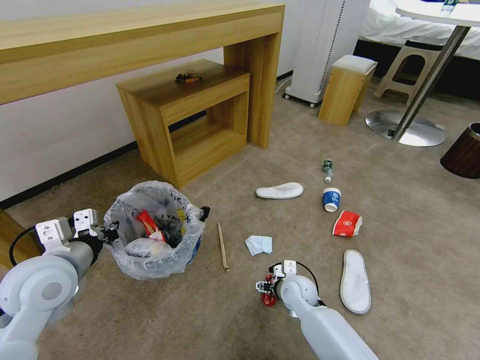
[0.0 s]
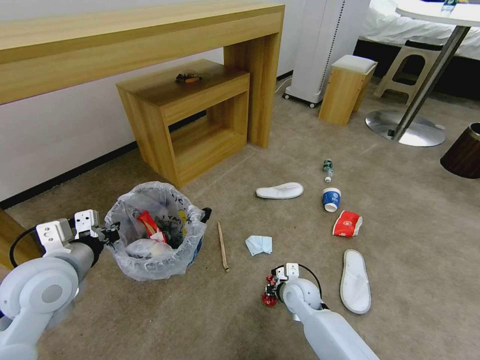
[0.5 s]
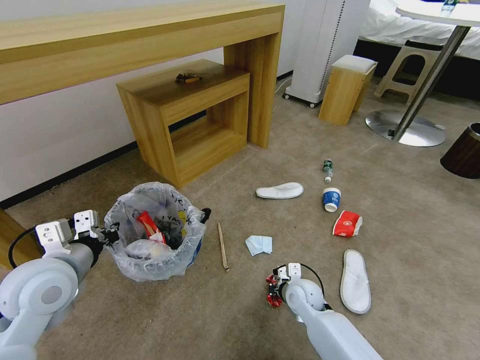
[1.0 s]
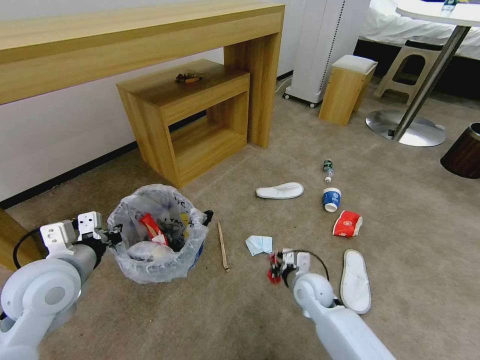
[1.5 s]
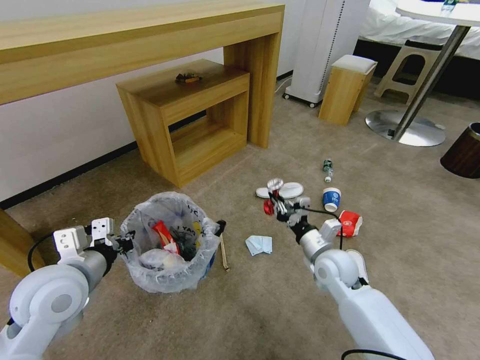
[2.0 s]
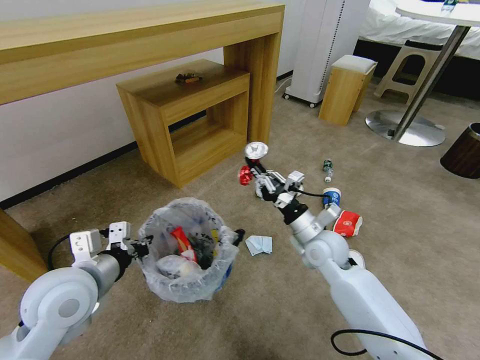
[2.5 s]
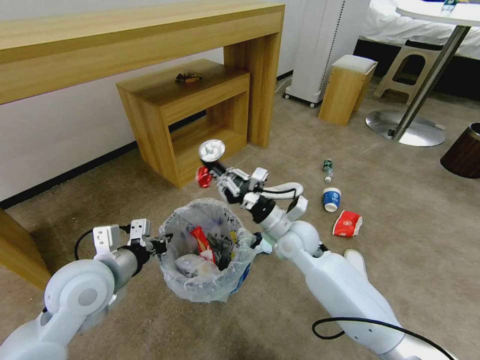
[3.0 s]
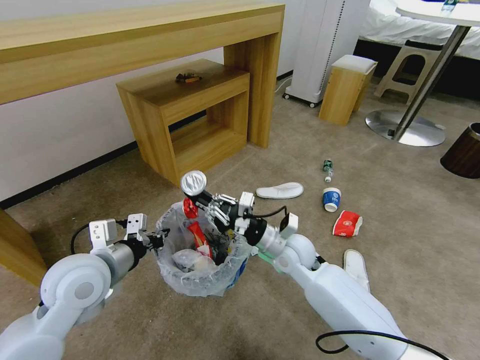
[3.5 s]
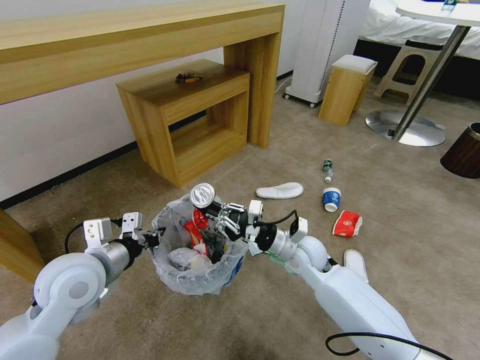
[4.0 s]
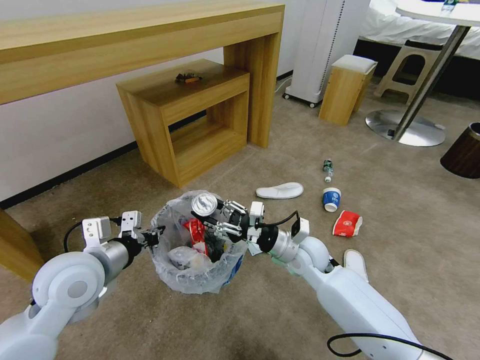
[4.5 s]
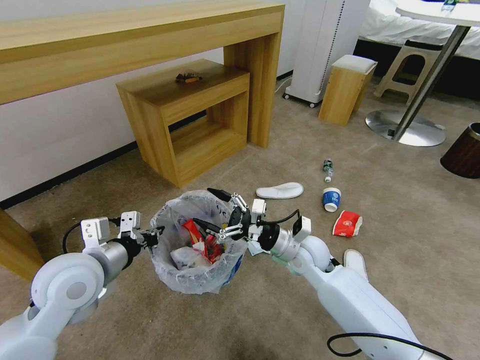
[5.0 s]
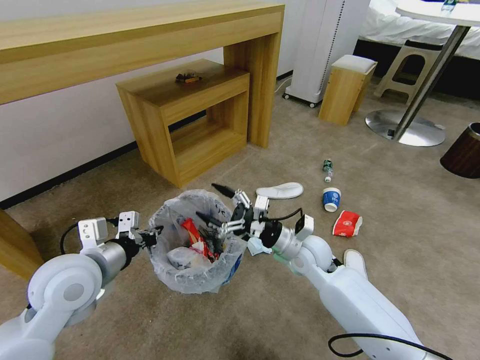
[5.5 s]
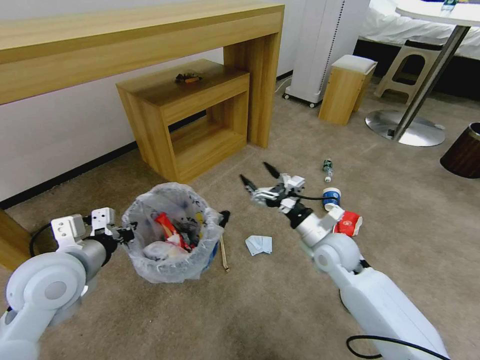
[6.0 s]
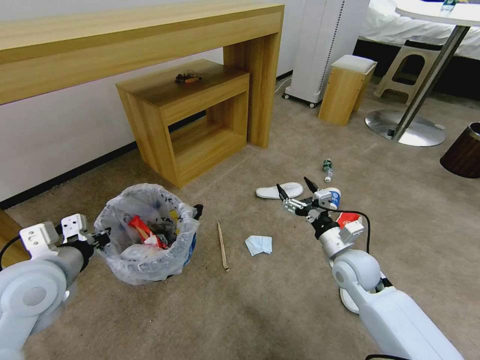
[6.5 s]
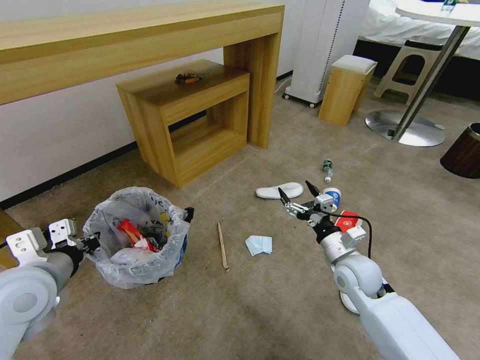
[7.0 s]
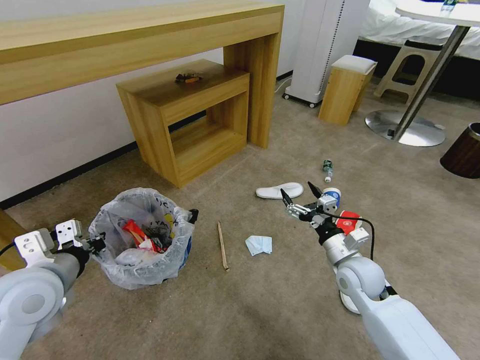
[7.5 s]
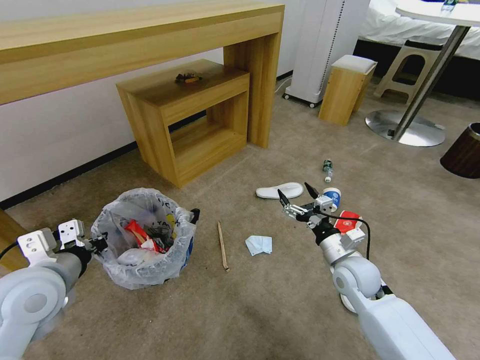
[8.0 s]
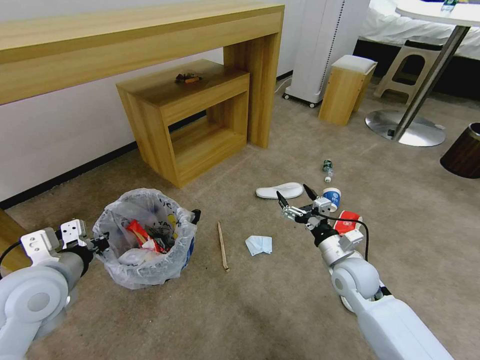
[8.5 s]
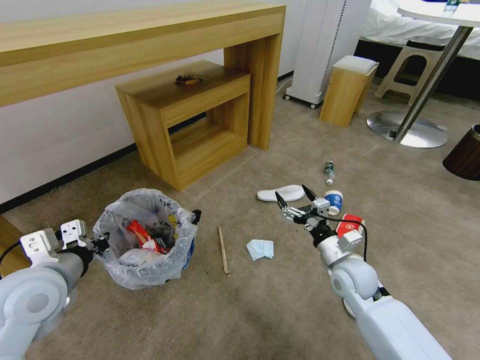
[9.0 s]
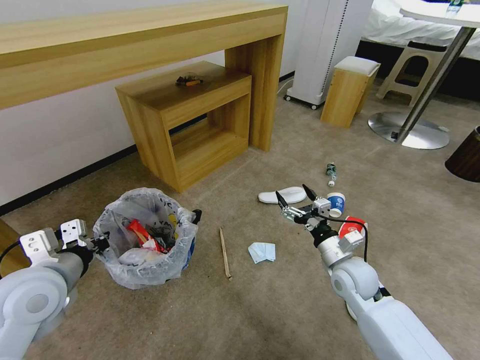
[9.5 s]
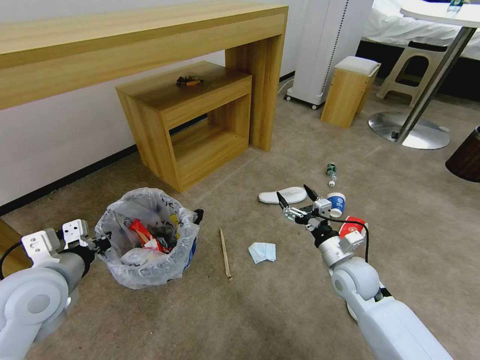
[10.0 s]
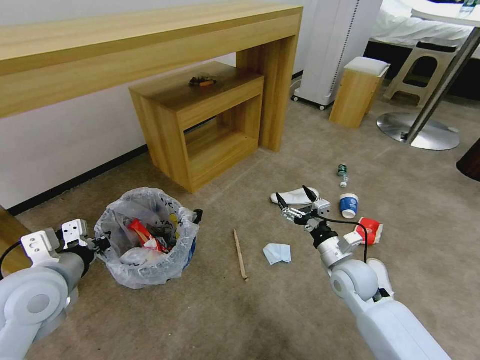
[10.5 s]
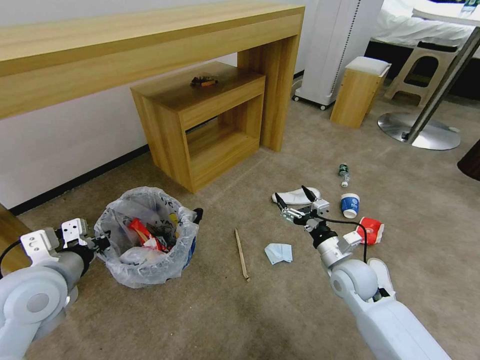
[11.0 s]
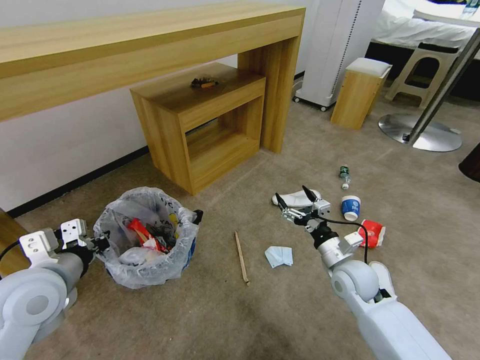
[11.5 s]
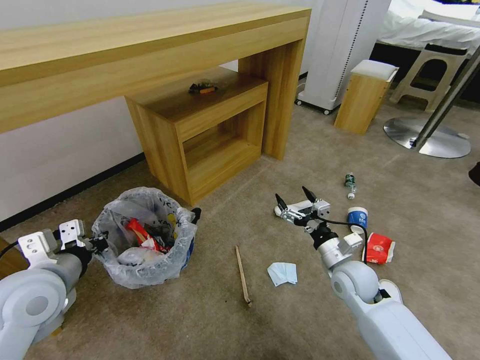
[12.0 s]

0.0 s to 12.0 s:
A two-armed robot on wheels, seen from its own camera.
Task of the whole recording: Pick up the trash bin and place the garbage on the floor into it.
0.0 to 2.0 s: The right gripper moves upward and to the right, some 15 cm, and closes.
2.0 to 4.0 s: The right gripper goes some 5 cm to the left.
4.0 to 6.0 s: The right gripper heads to the right, covering about 5 cm, and opens.
6.0 to 8.0 s: The right gripper changes place by approximately 5 cm.
8.0 to 10.0 s: Both grippers stay about where they are.

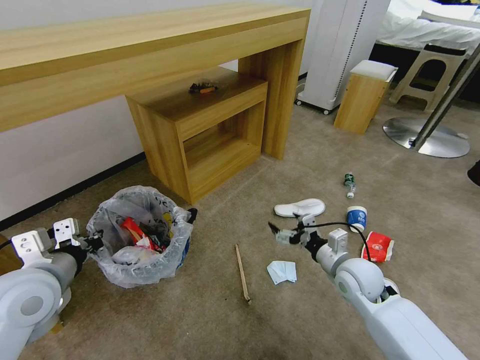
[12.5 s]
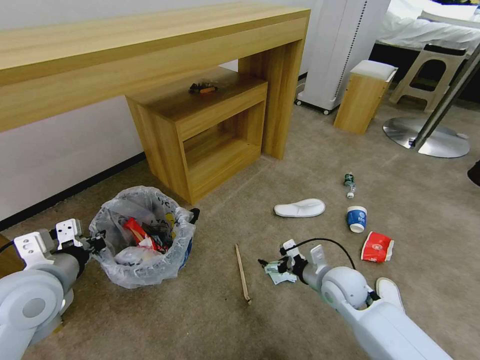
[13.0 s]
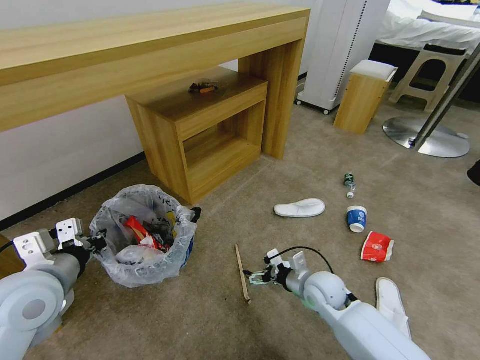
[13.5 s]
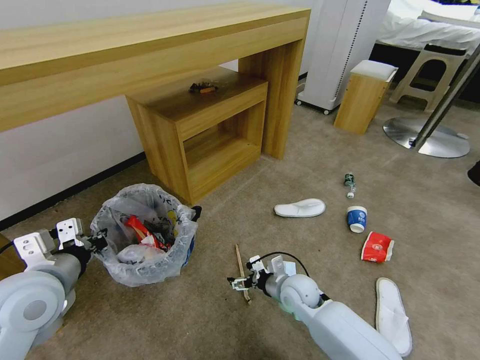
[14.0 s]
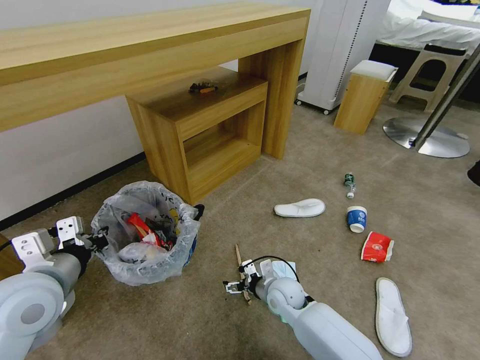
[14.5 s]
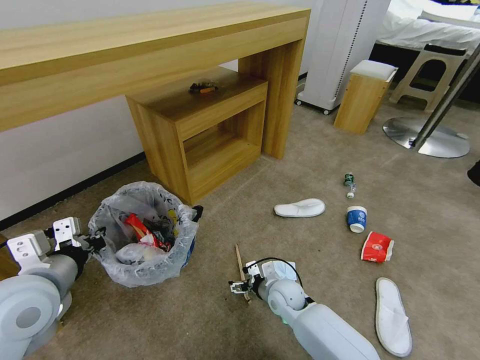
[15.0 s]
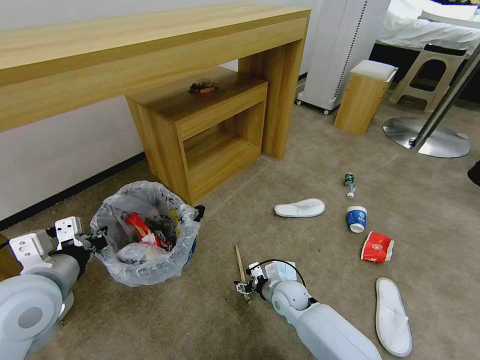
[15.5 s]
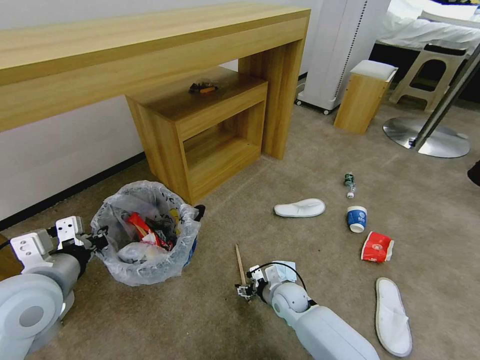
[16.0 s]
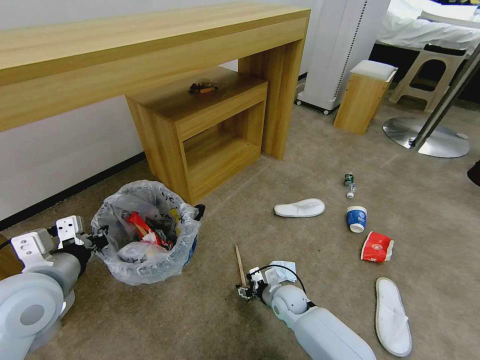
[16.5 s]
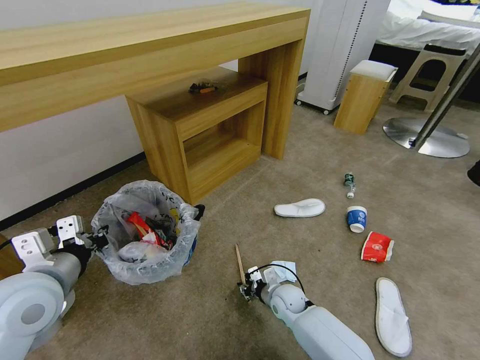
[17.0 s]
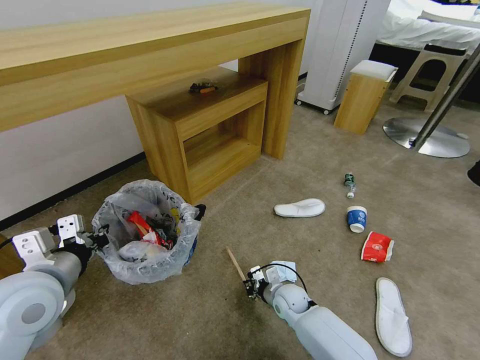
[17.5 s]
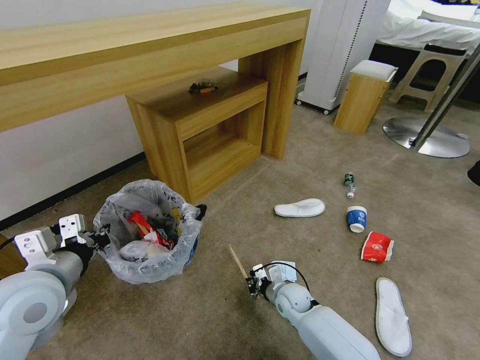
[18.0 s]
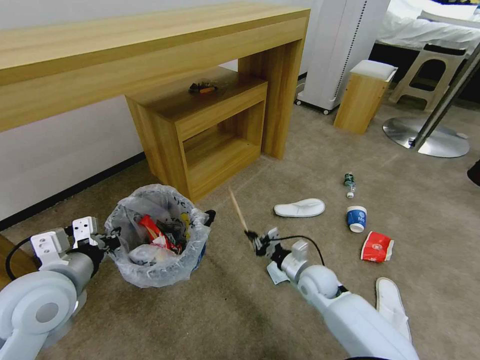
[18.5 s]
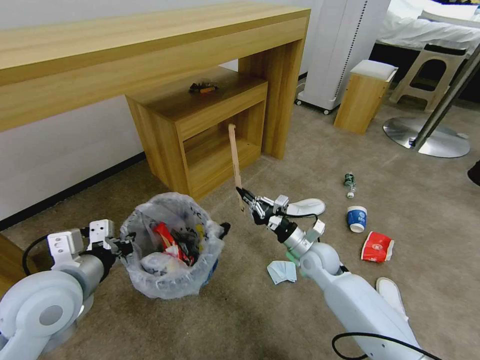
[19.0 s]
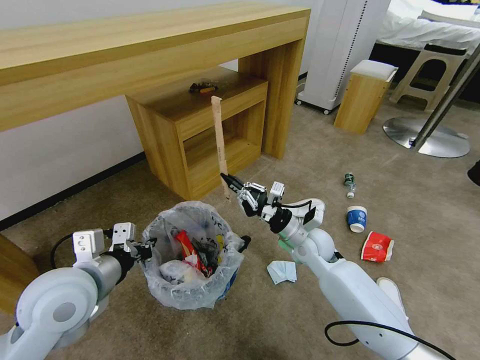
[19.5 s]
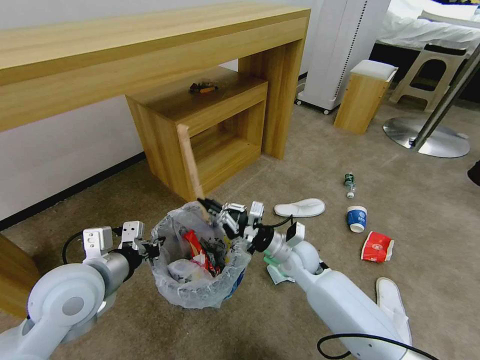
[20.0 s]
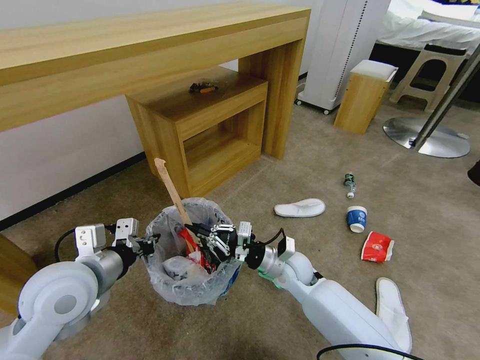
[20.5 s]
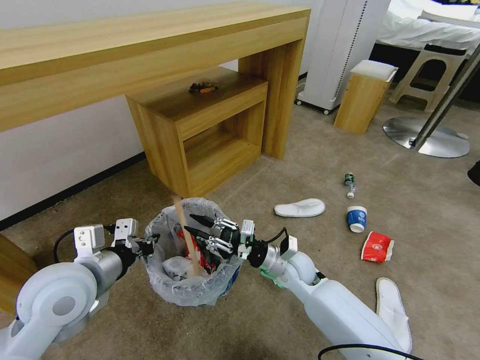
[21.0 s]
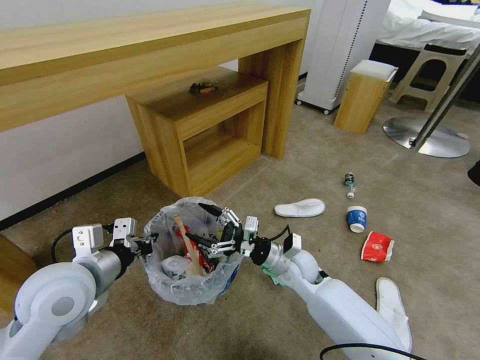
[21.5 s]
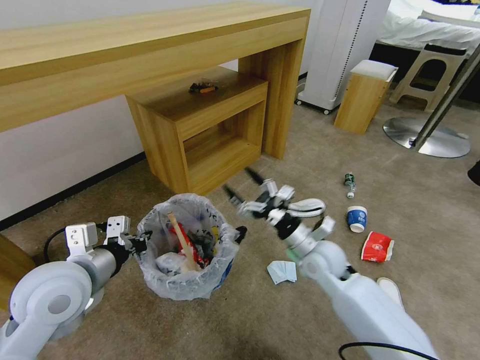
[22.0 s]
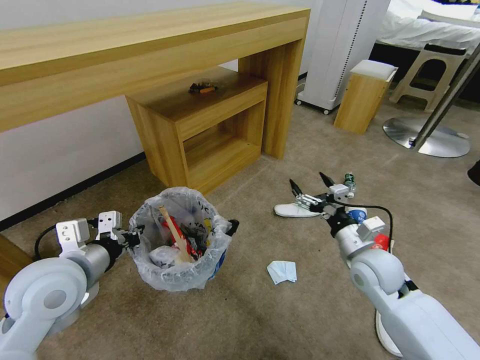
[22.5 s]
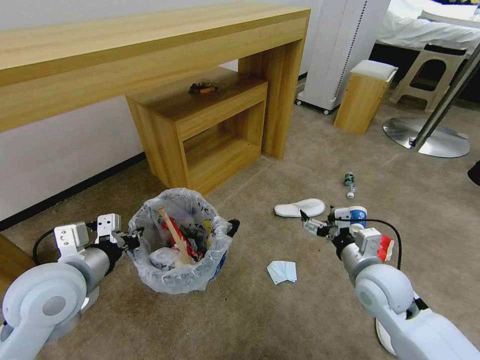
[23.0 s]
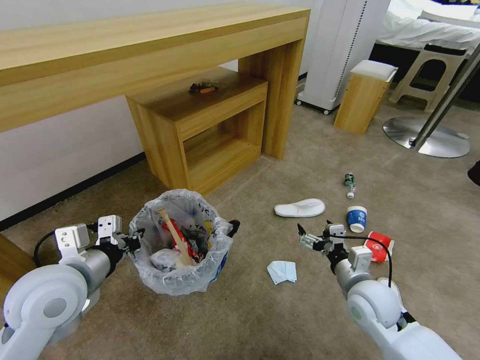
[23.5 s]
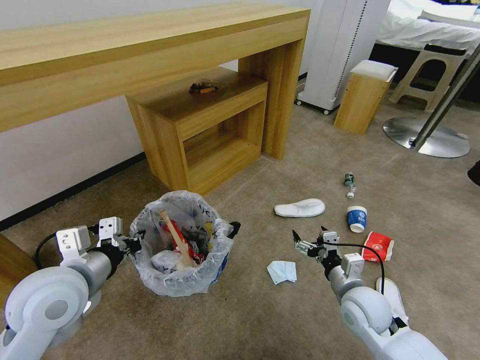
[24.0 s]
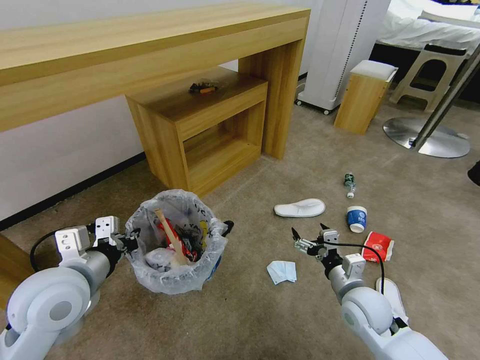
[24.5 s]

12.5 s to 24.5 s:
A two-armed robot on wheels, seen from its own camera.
Task of the whole recording: Pick up the trash bin and place the garbage on the floor into it.
12.5 to 14.5 s: The right gripper shifts about 20 cm to the left and downward.
14.5 to 16.5 s: The right gripper heads downward, covering roughly 5 cm, and closes its fingers.
16.5 to 18.5 s: The right gripper is displaced upward and to the right by some 10 cm, and closes up.
18.5 to 20.5 s: The right gripper goes about 10 cm to the left and upward.
20.5 to 22.5 s: The right gripper goes about 15 cm to the right and upward, and opens.
22.5 to 24.5 s: The right gripper goes roughly 10 cm downward and backward.

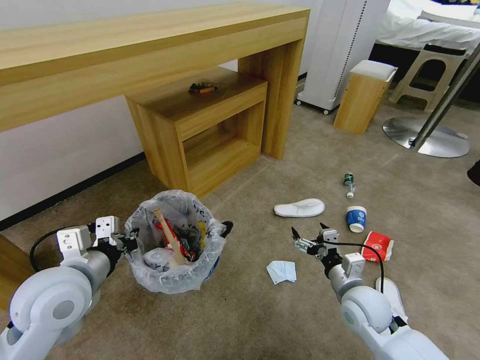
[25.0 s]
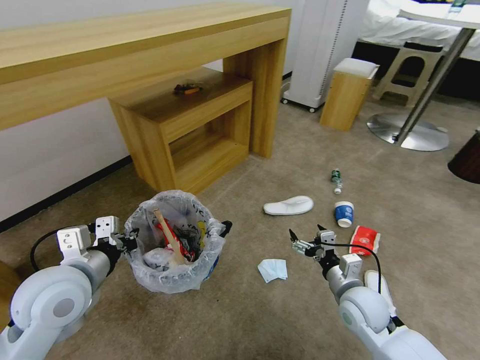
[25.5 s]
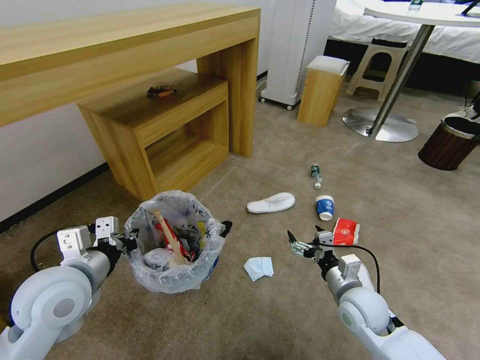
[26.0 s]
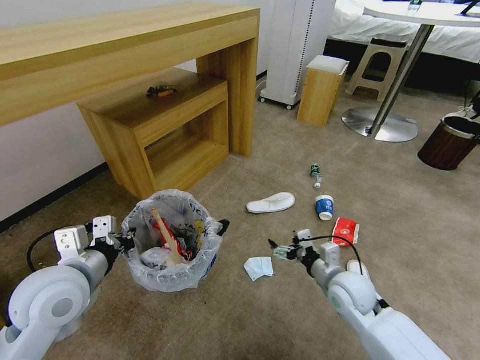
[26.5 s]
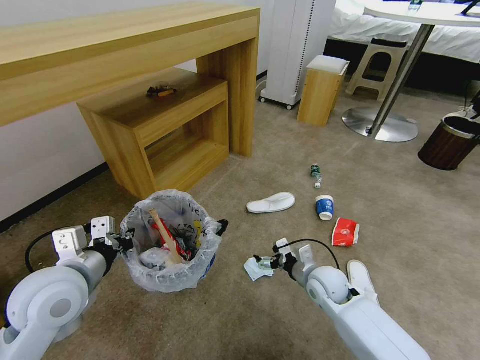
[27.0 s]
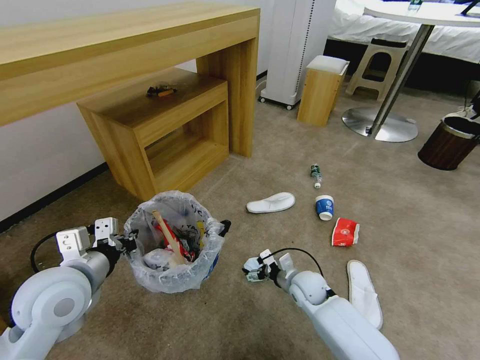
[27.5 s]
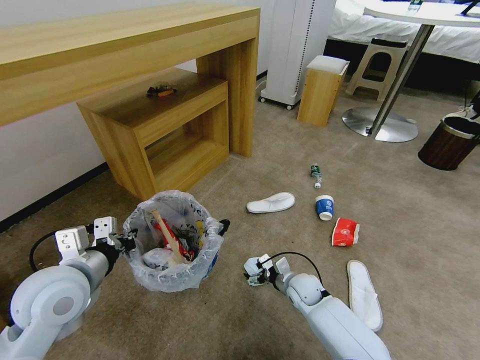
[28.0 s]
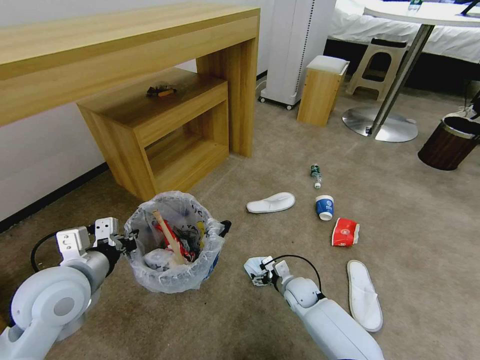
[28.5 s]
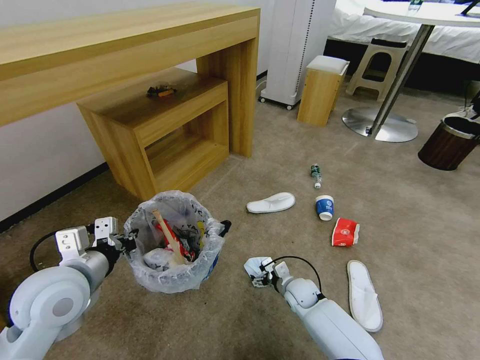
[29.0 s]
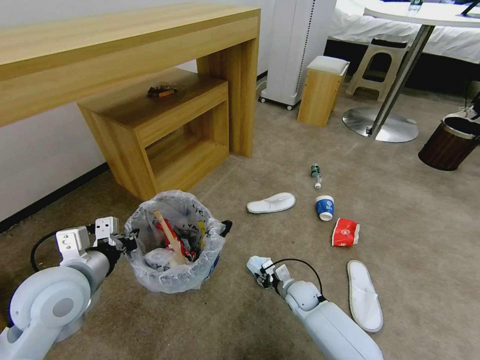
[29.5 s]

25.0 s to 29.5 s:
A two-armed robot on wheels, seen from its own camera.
Task of the whole recording: Pick up the trash bin and place the garbage on the floor into it.
25.0 to 27.0 s: The right gripper moves forward and to the left, roughly 10 cm.
27.0 to 29.5 s: The right gripper moves downward, roughly 15 cm, and closes up.
